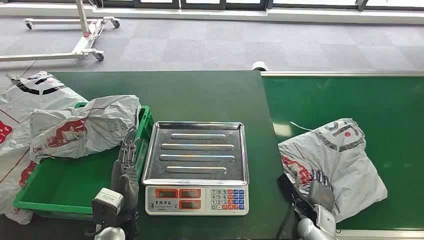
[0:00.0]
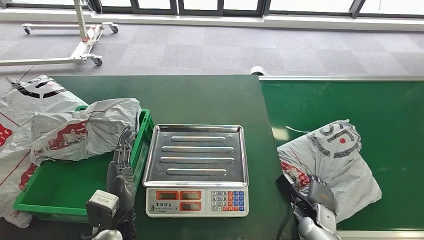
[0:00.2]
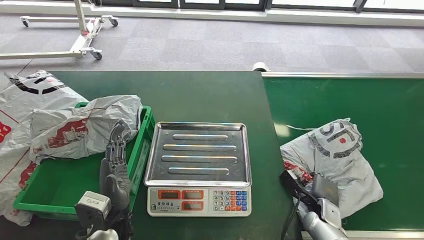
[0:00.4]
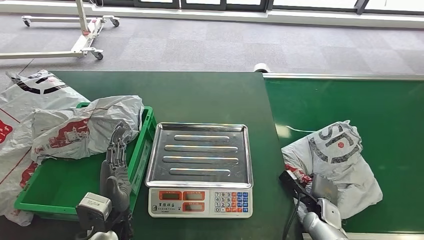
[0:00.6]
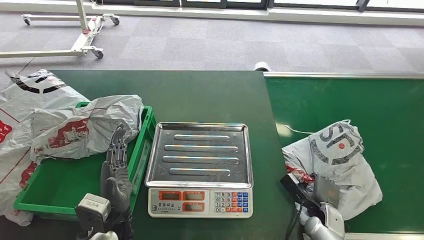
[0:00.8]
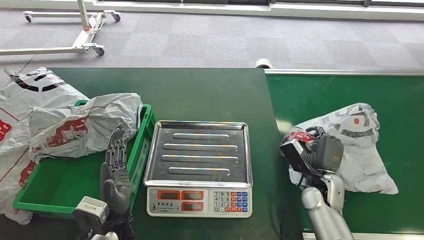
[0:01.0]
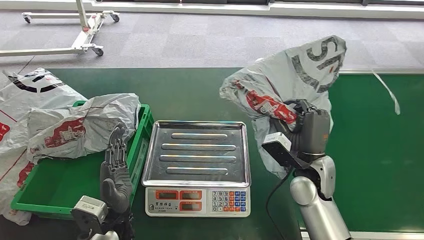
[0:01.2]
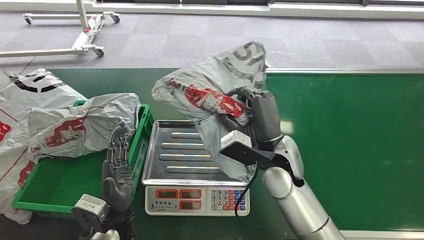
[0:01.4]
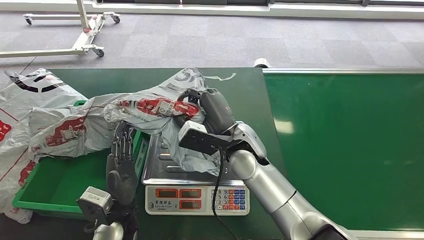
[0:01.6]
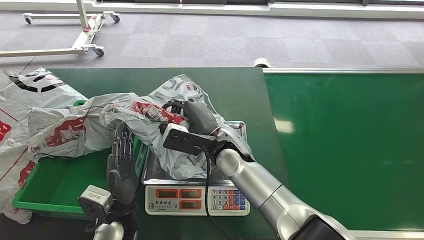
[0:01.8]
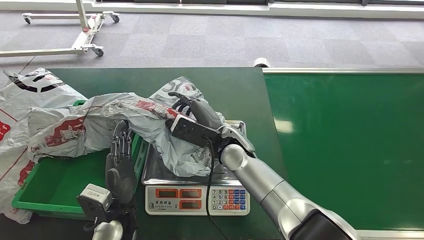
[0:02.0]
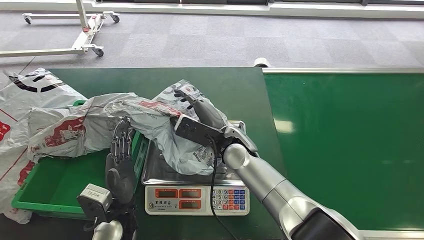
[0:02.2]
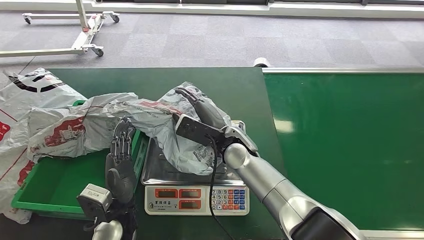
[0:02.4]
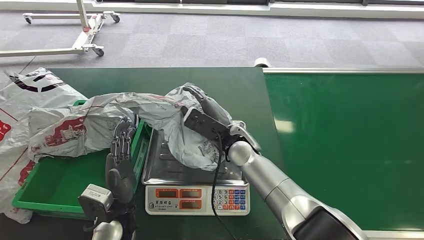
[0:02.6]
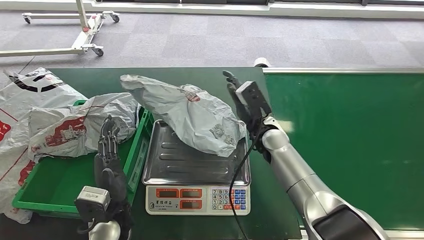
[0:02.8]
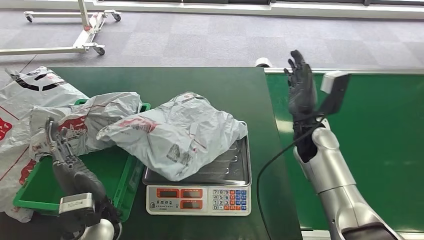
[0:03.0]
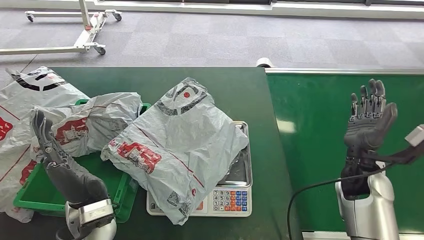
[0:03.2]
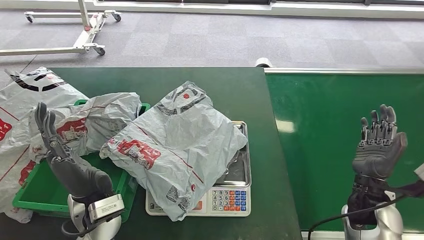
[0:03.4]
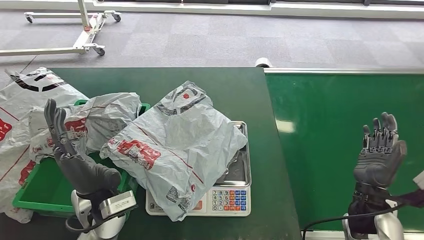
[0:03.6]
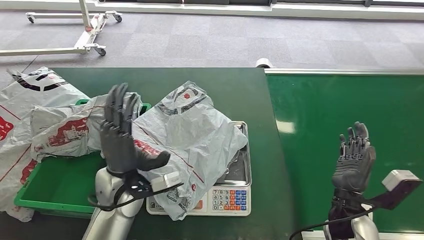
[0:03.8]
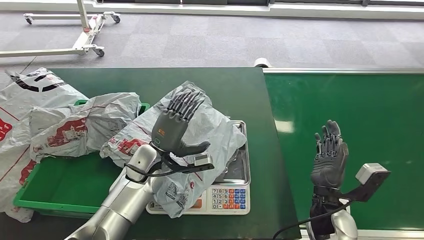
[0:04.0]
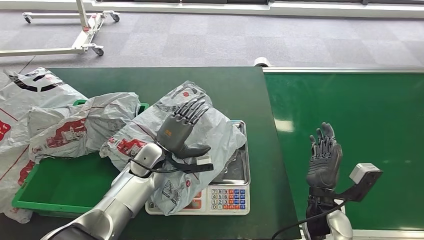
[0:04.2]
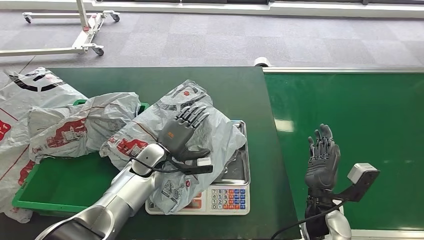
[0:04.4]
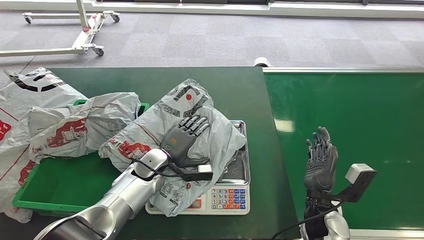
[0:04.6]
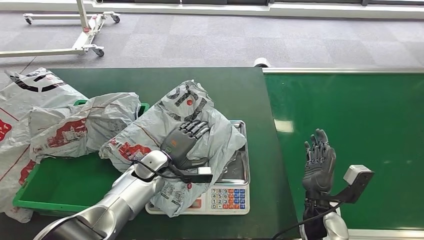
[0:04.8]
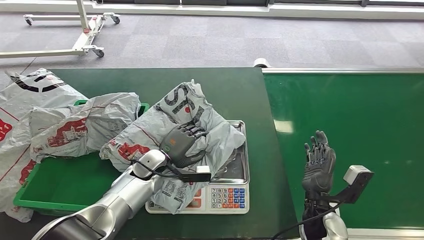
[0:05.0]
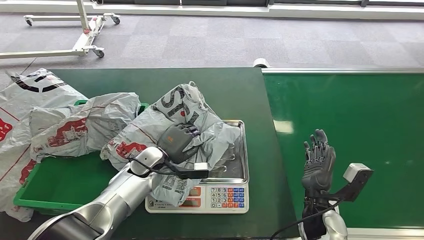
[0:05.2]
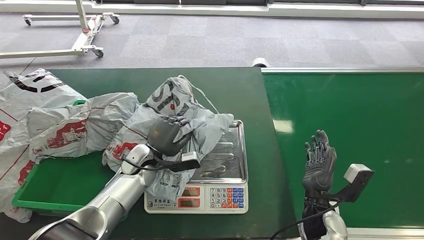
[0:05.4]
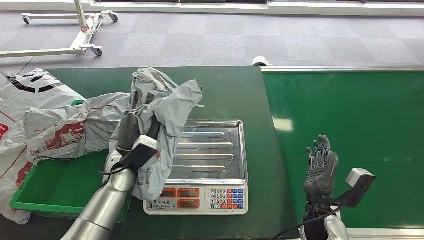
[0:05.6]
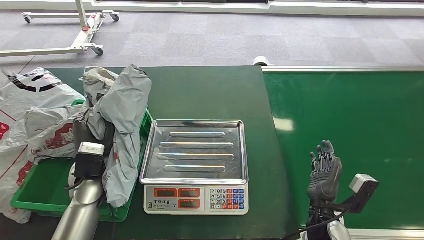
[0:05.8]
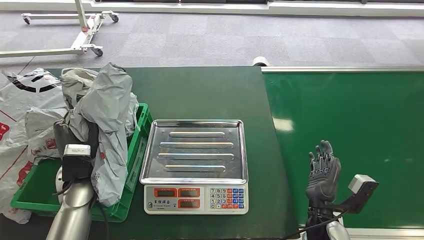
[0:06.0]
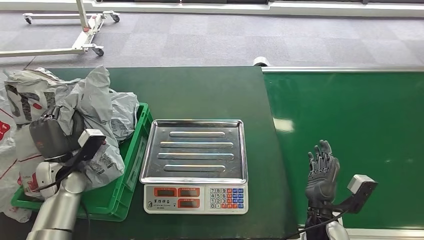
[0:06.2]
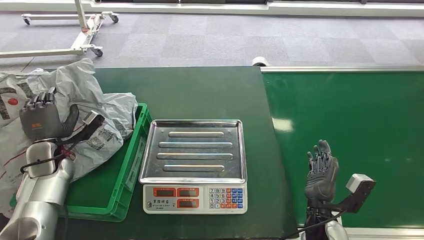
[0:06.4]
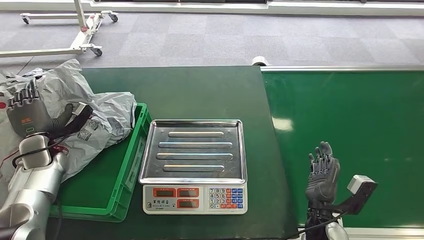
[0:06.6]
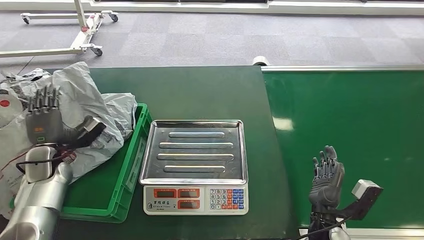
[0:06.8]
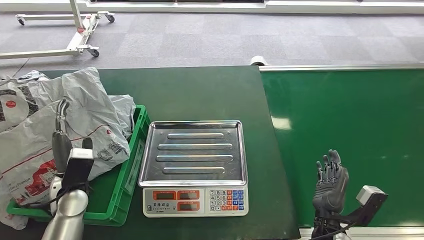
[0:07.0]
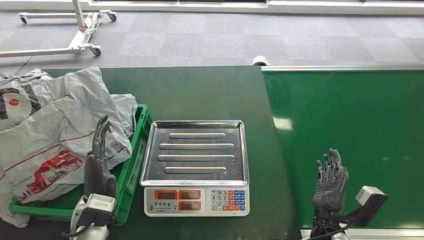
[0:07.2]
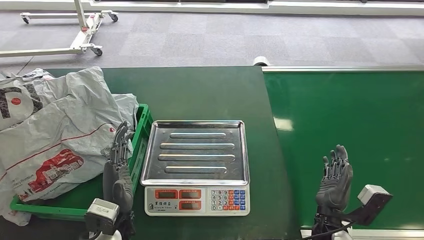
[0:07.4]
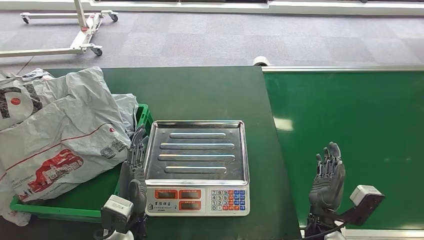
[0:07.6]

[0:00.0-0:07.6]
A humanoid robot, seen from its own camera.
Step, 0:00.0 to 0:01.2: Pick up the package from the conveyor belt.
Step, 0:01.4 to 0:02.8: Place the package onto the inbound machine.
Step, 0:03.0 to 0:06.0: Pick up the package from the inbound machine.
Step, 0:06.2 to 0:07.6: Place the package into the parcel locker.
